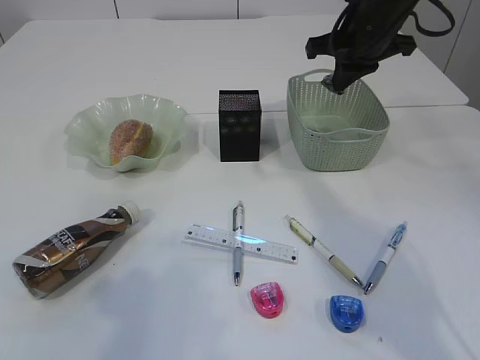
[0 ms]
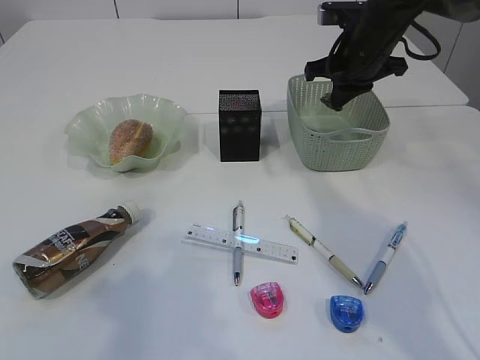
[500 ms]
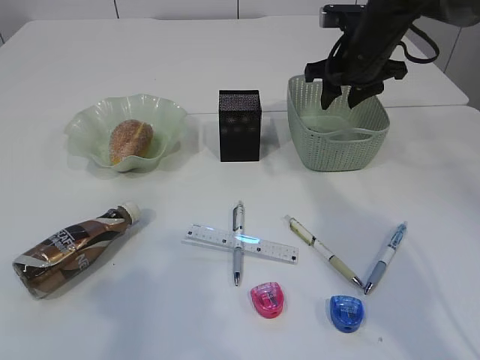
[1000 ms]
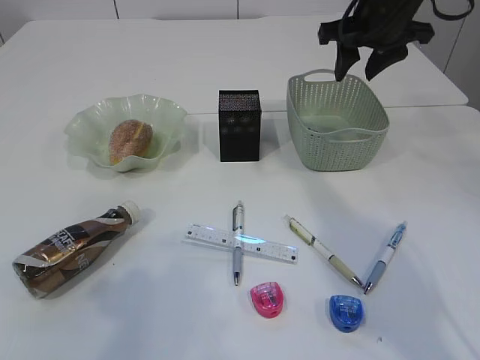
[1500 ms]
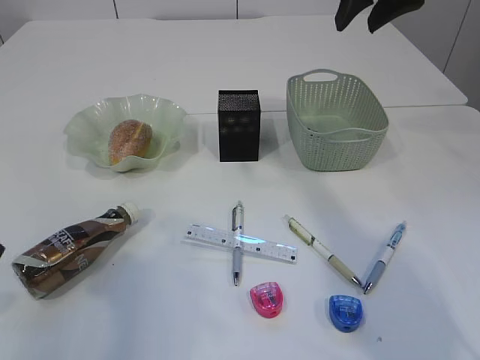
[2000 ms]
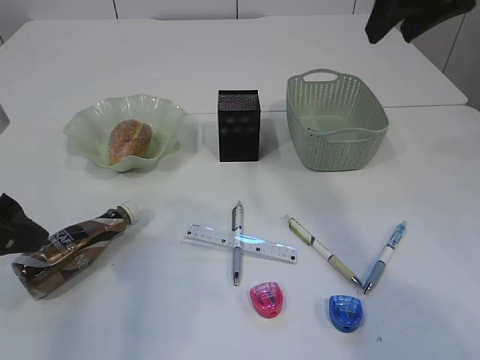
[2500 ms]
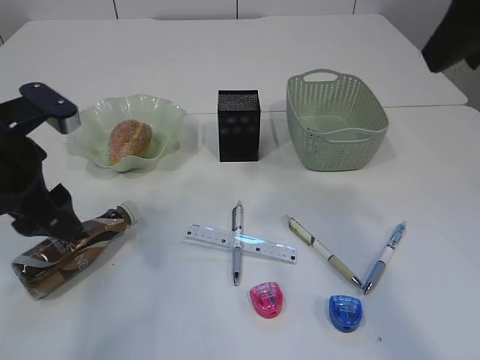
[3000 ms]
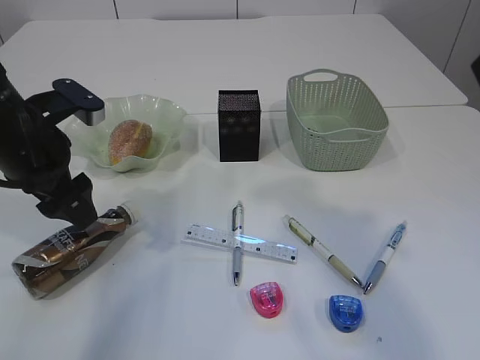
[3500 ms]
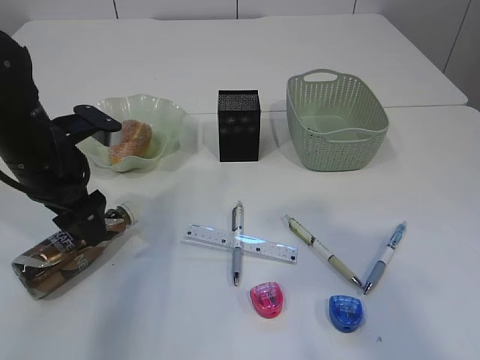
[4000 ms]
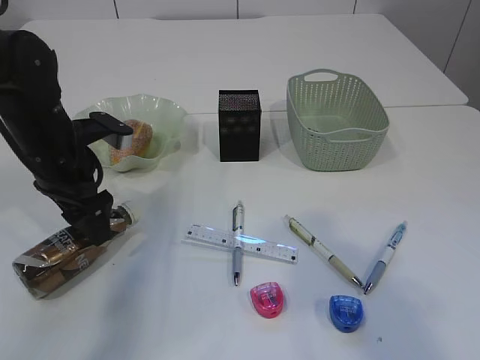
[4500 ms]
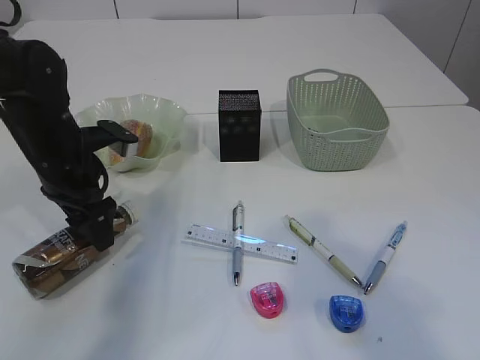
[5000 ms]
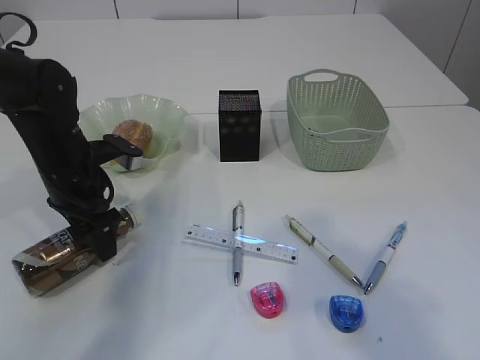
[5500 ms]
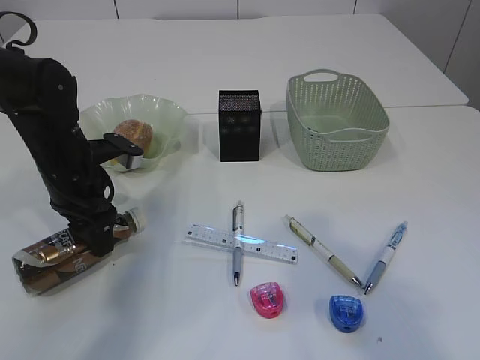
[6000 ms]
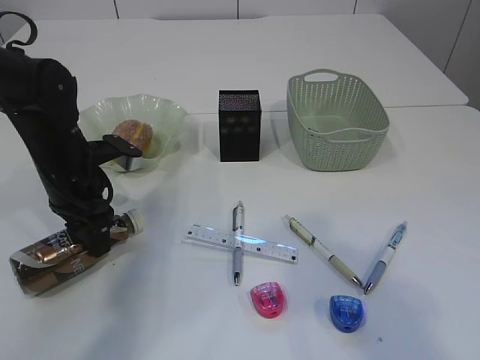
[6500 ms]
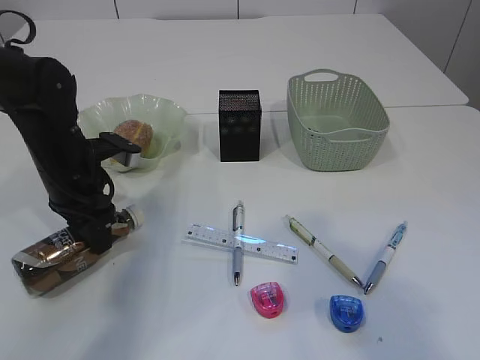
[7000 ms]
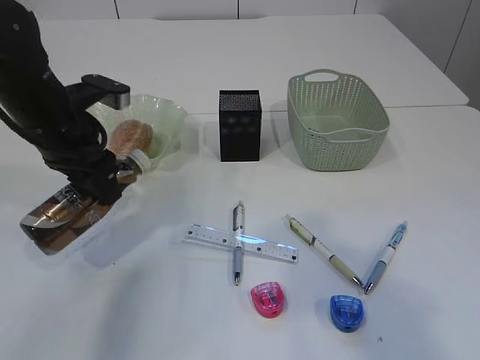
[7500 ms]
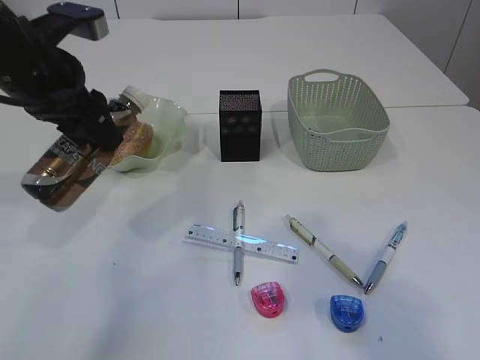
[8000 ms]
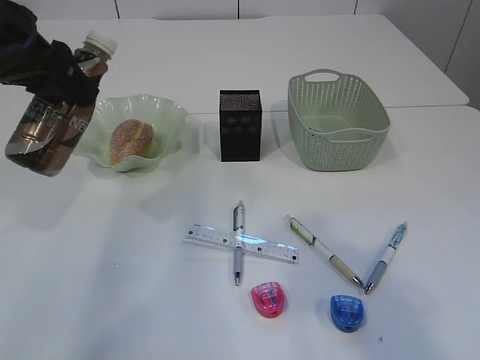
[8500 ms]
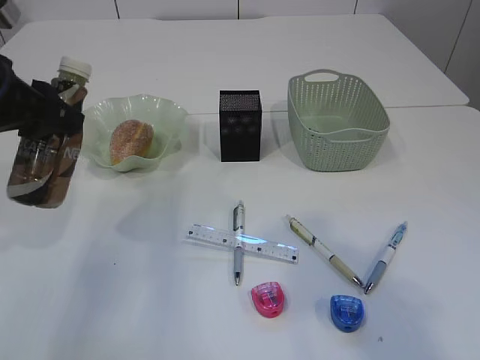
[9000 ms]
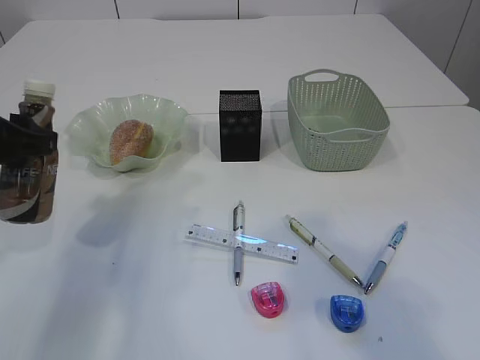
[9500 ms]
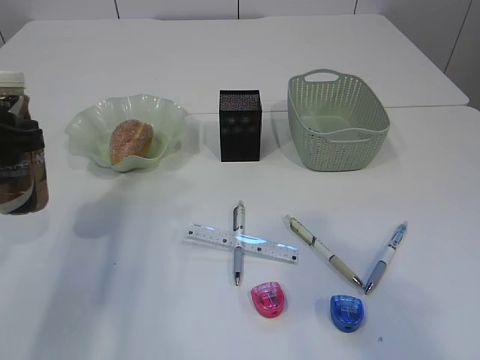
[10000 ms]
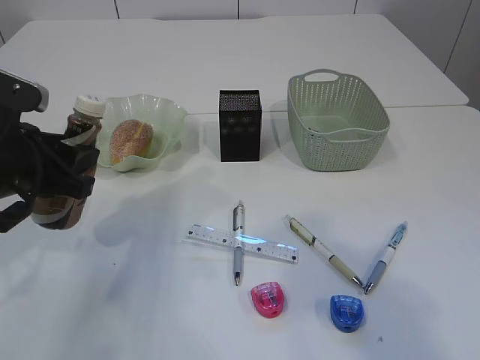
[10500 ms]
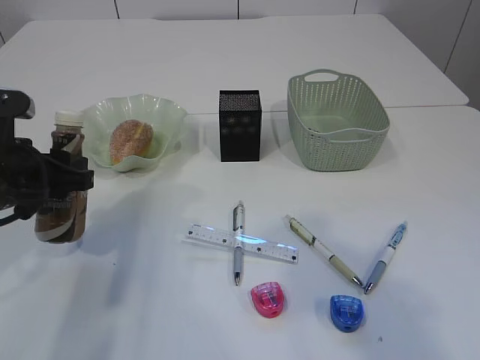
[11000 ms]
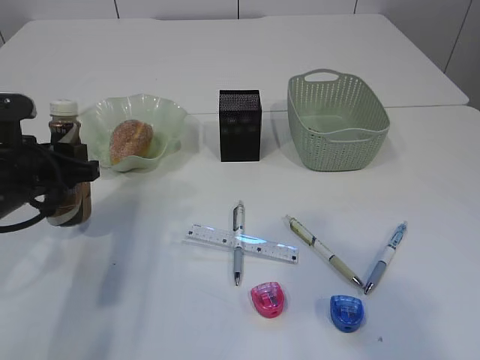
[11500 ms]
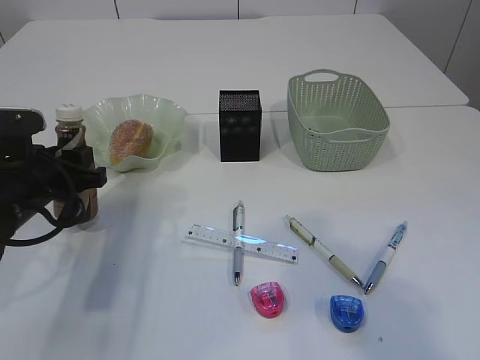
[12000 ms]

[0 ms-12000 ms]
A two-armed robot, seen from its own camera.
Step, 1500 ms to 8500 ms: Pick up the bottle with the left arm.
0 ms to 2000 ms: The right gripper shifts approximately 10 cm upward, and opens its fingers.
2000 ms to 4000 ms: The right gripper heads backward, covering about 30 cm. The left gripper heads forward and downward, covering about 20 cm.
4000 ms to 6000 ms: The left gripper changes place by about 5 cm, and closes up.
6000 ms to 8000 ms: The left gripper moves upward, roughly 15 cm.
8000 ms to 10000 ms: The left gripper travels backward, to the left and downward by roughly 10 cm.
10000 ms to 12000 ms: The left gripper moves downward, some 10 cm.

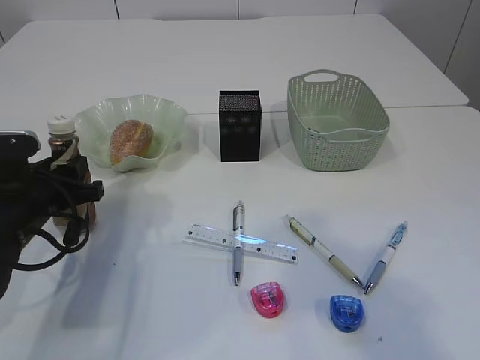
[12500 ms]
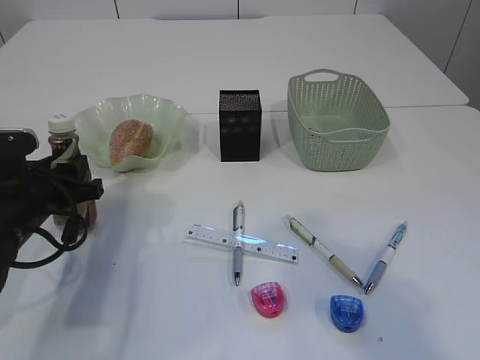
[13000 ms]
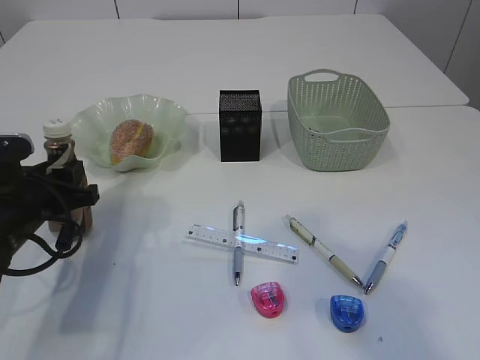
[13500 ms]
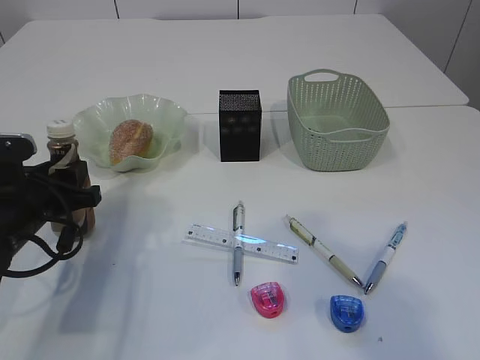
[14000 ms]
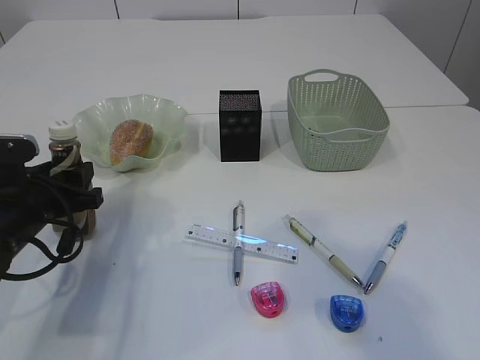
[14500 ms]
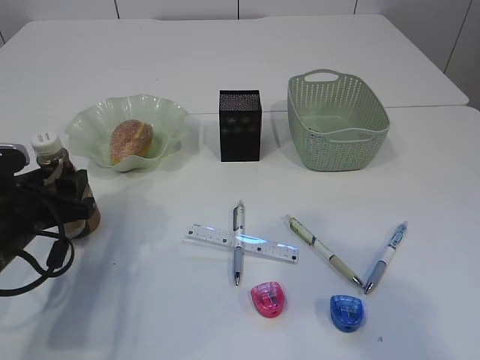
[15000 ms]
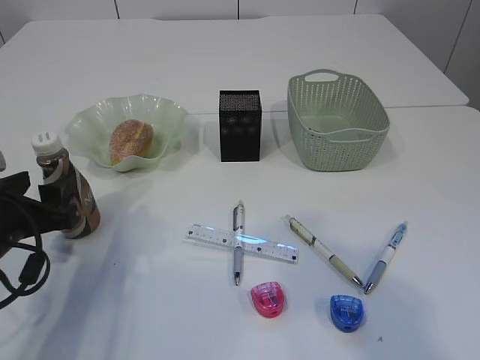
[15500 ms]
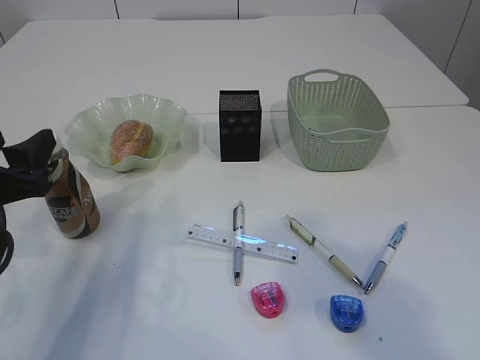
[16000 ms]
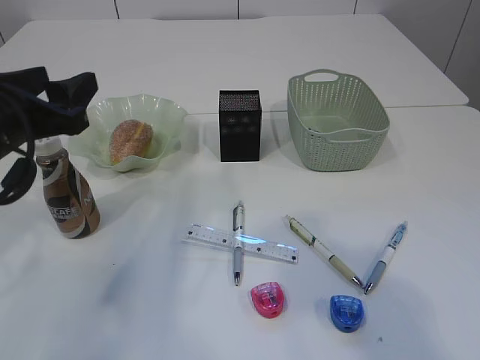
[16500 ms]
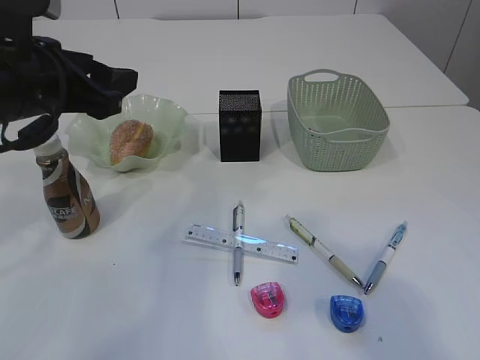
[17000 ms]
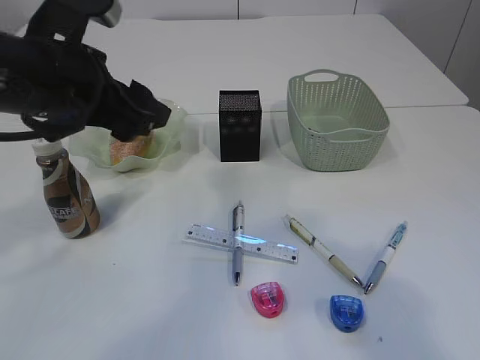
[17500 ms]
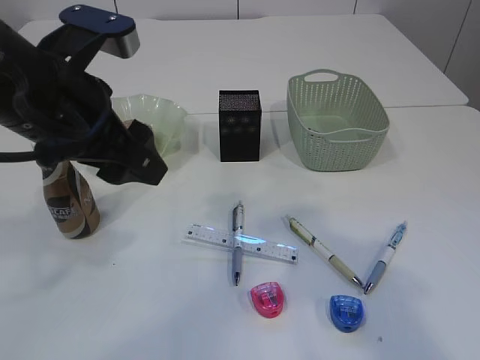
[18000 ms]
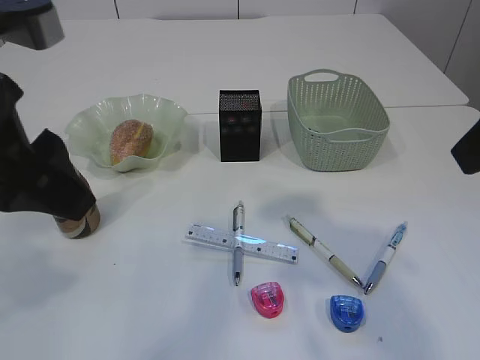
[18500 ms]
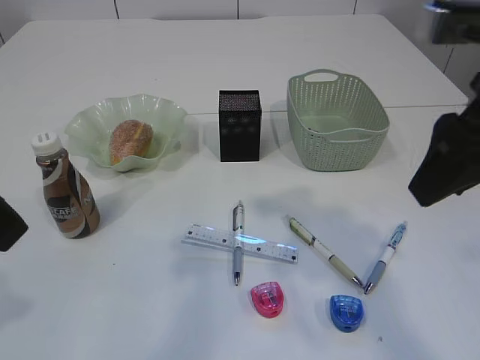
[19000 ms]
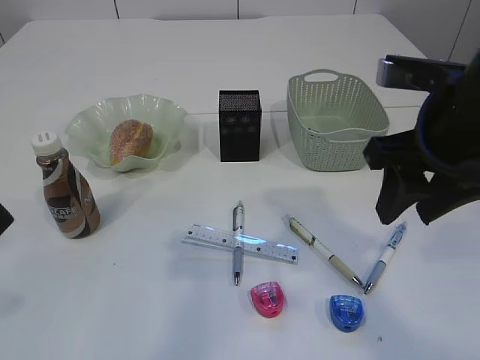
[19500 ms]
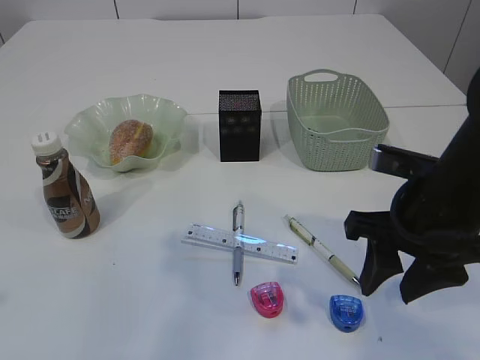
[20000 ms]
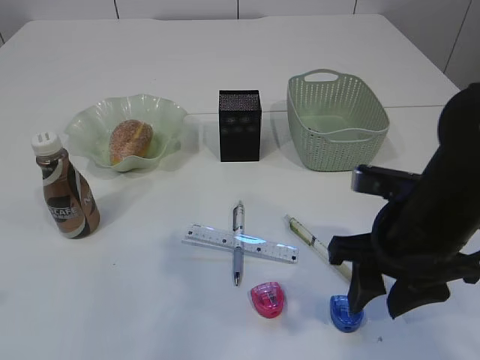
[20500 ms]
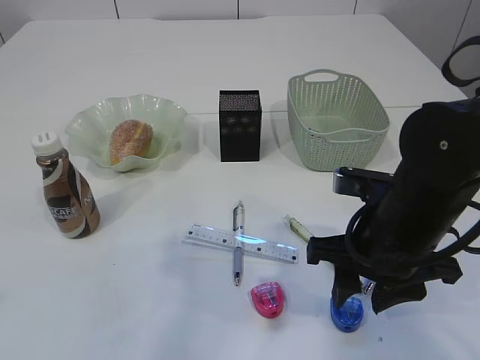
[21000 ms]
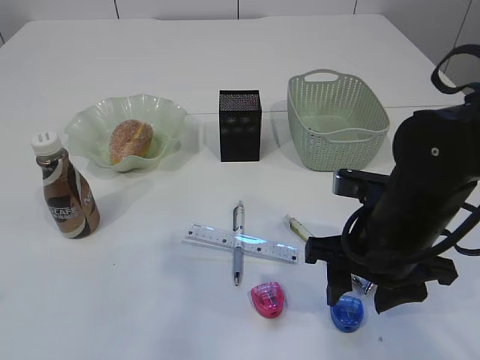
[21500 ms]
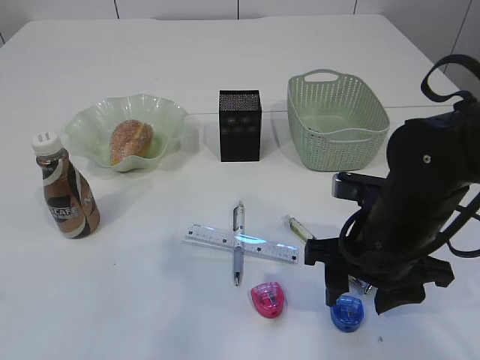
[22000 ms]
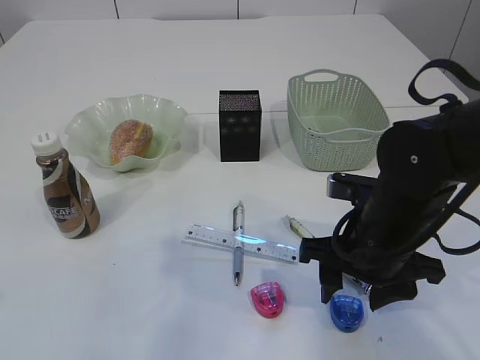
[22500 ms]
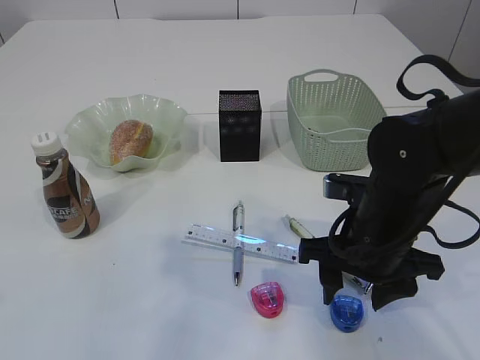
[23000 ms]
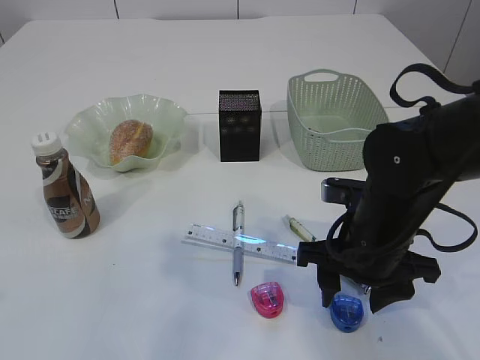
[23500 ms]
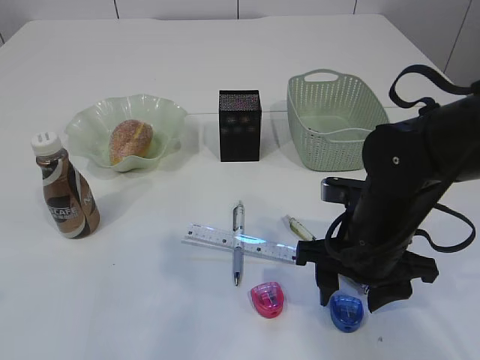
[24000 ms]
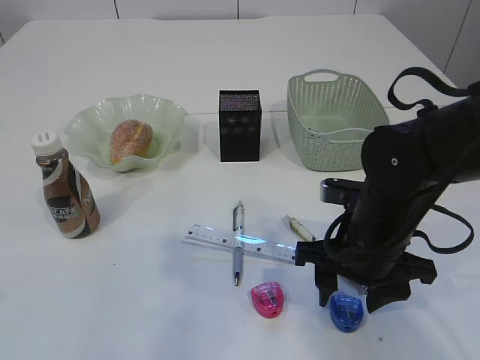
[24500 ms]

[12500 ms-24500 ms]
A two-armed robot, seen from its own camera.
Step, 12500 ms to 16000 ms: Place the bottle.
12500 ms to 14500 ms: Both grippers stay about where they are.
14500 ms to 16500 ms: The left gripper moves upward, roughly 10 cm.
16500 ms to 18500 ms: The left gripper moves upward, backward and to the right, roughly 15 cm; the right gripper heads forward and downward, covering roughly 10 cm.
18500 ms to 20500 ms: The left gripper shifts by approximately 5 cm. Meanwhile the right gripper moves downward, about 20 cm.
20500 ms to 24500 ms: The grippers stay close to where they were, moving slightly.

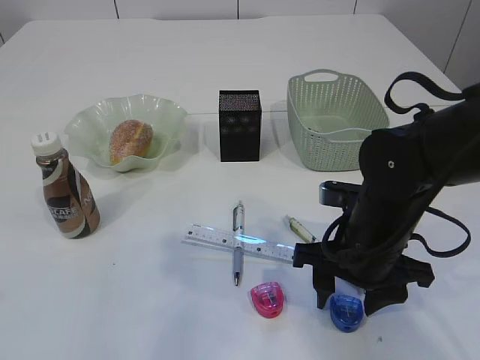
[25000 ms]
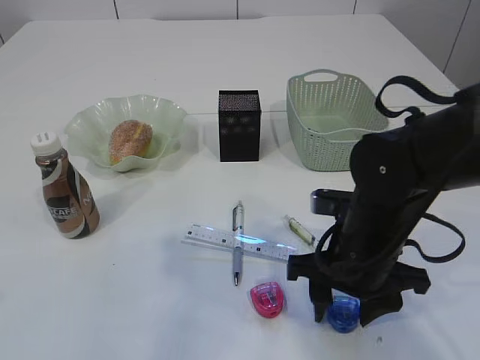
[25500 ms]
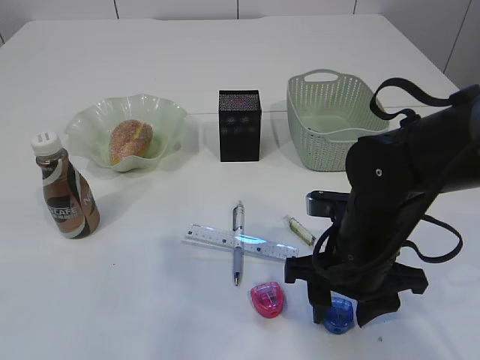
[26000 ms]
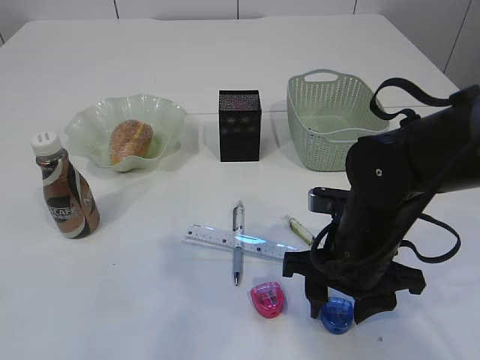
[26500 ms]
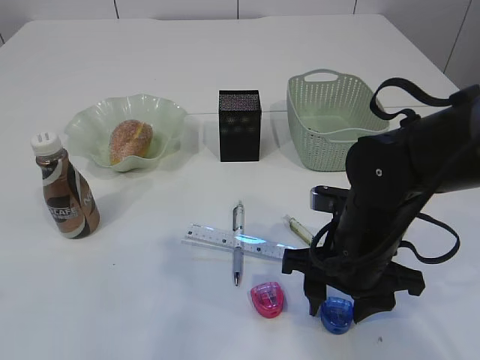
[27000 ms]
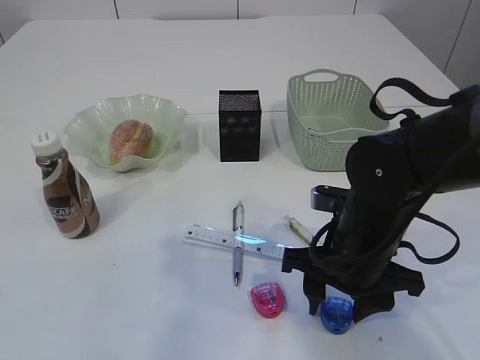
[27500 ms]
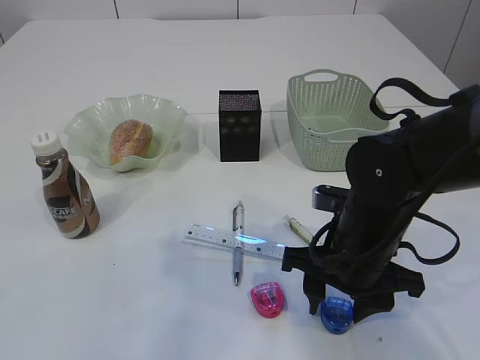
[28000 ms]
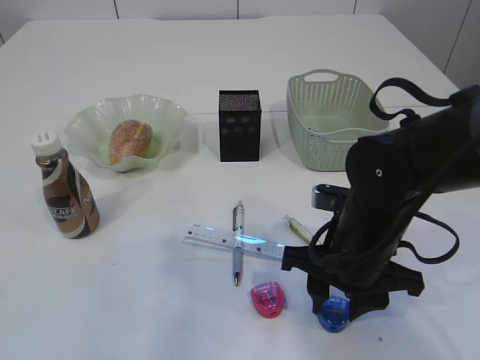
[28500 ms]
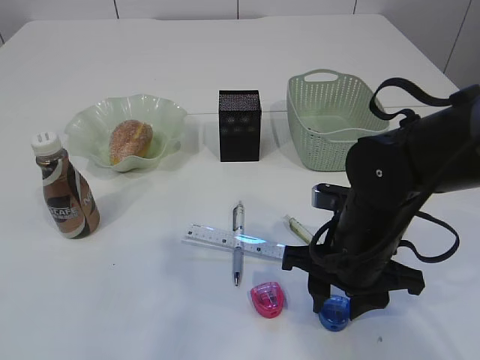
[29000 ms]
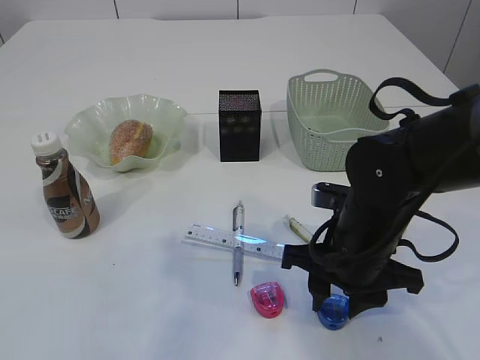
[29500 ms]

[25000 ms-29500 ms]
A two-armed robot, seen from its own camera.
25000 ms to 27000 ms: The grippers move only a little.
27000 ms to 29500 ms: Both grippers stay about where they are.
